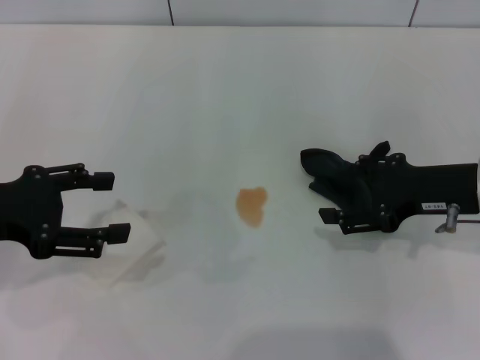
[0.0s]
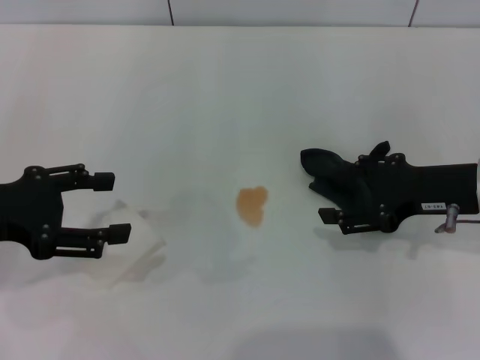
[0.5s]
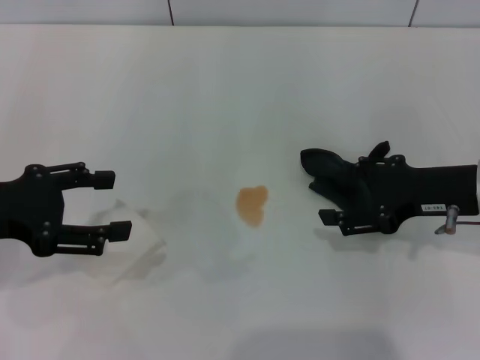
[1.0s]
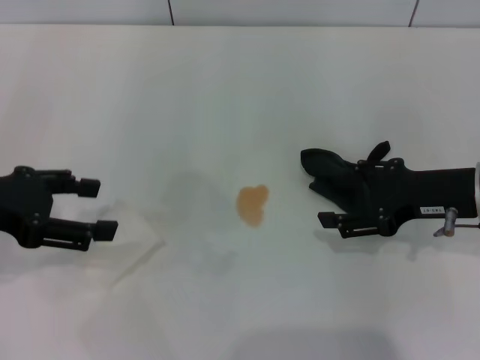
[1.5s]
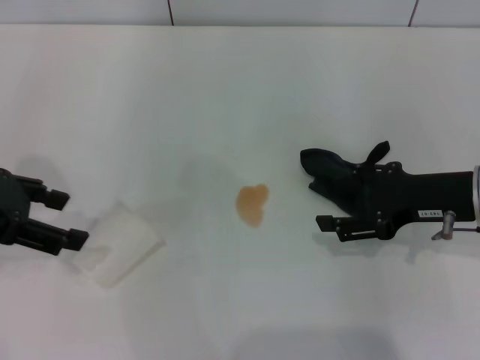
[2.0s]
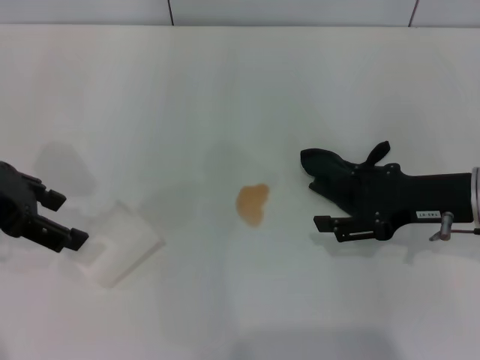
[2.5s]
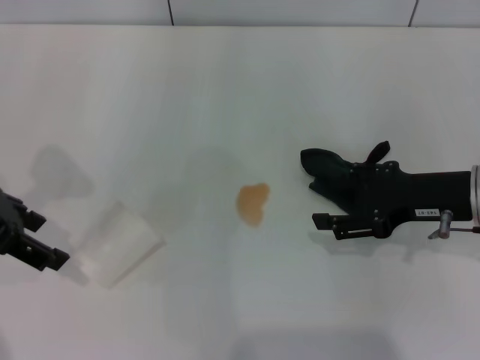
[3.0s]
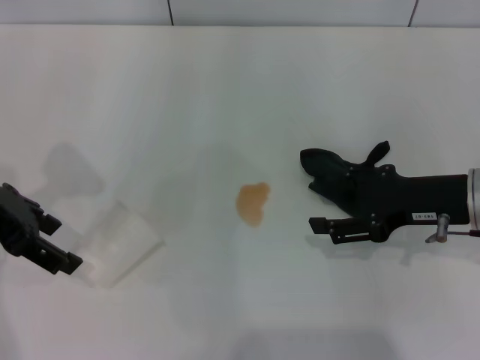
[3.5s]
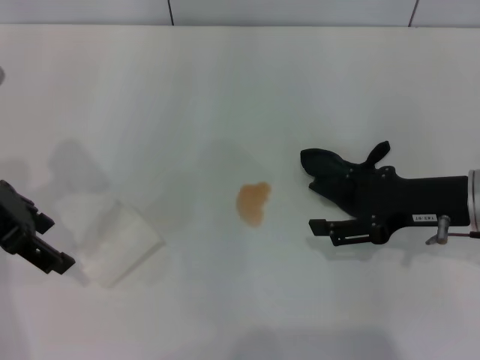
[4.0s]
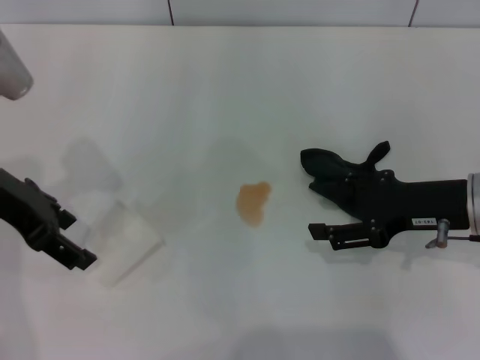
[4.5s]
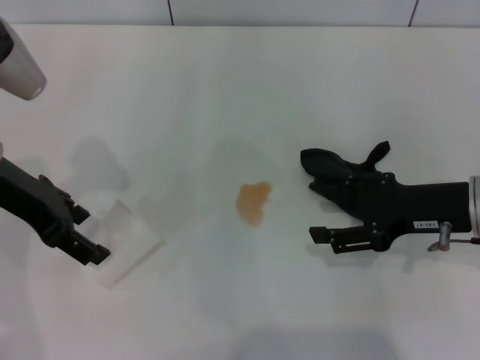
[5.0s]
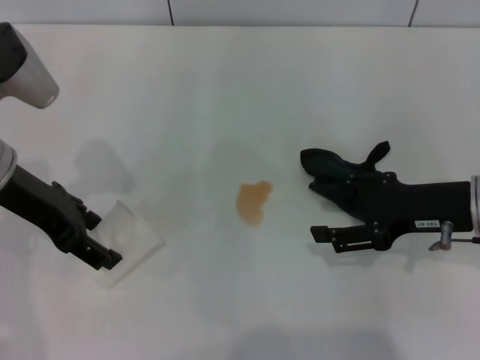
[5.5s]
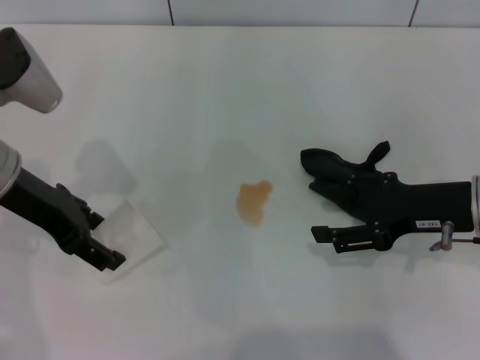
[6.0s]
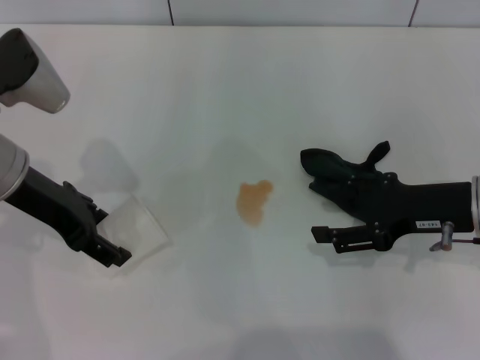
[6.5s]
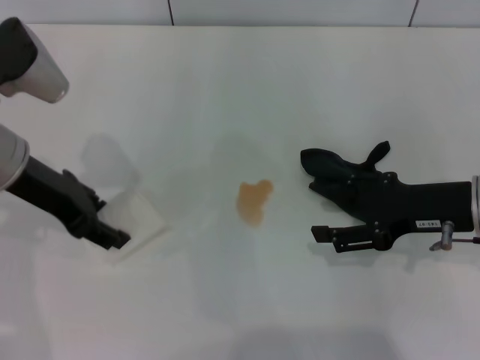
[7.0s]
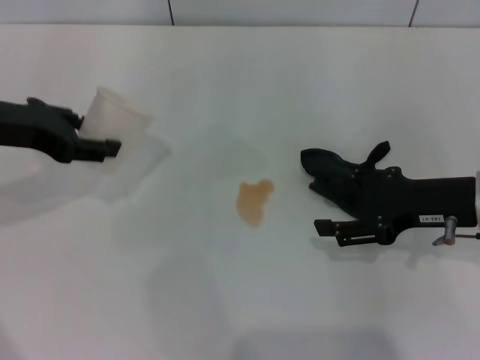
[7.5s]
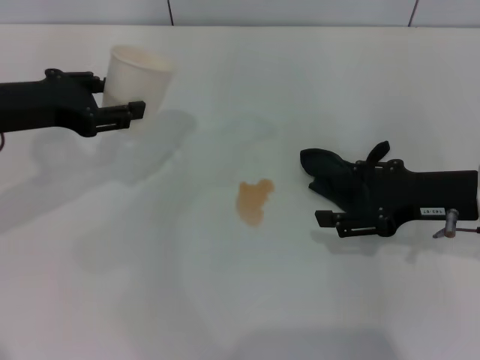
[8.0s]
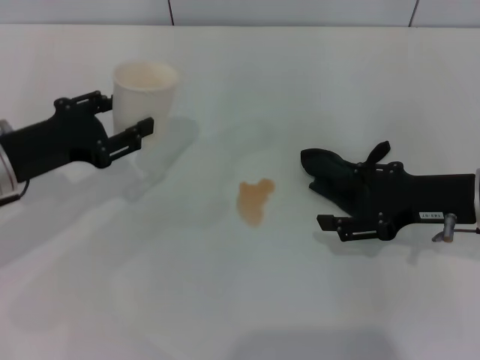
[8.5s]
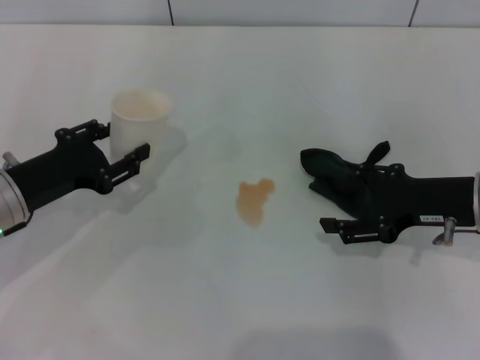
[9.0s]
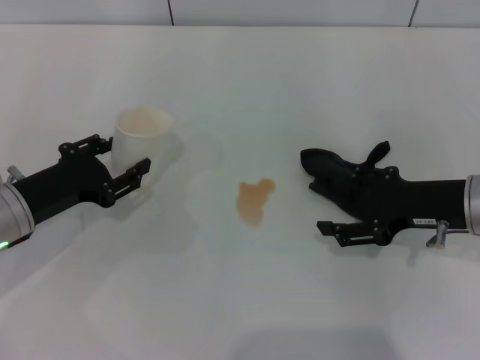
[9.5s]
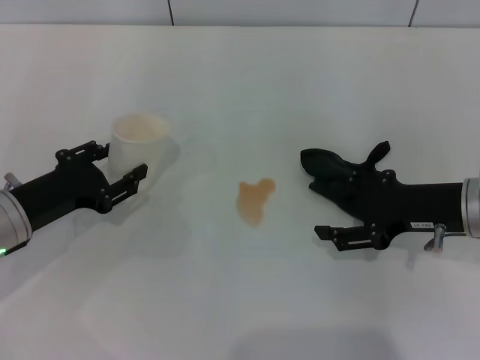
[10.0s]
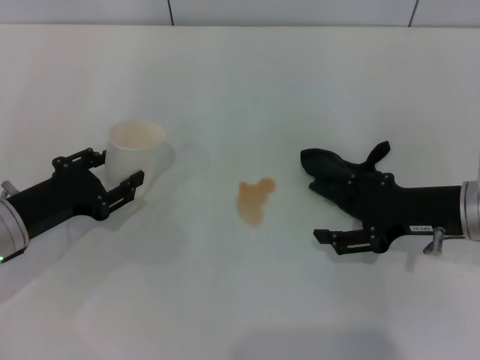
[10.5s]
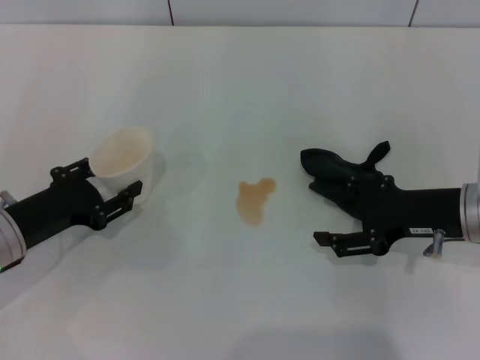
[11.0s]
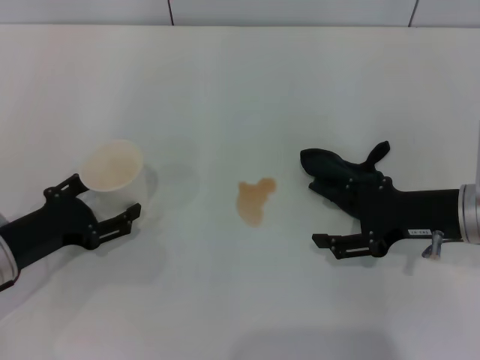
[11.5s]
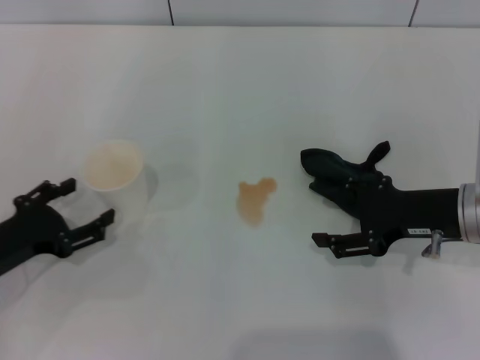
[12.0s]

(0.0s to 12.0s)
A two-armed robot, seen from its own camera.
Step, 0.0s - 6.5s: Grasp the paper cup with the left gripper.
Step, 7.0s - 11.5s: Stand the paper cup upright with the left gripper.
0.0s - 2.0s: The left gripper shifts by about 5 cm.
4.0s - 6.0s: The grippers stay close to where they were, moving slightly.
6.0s - 8.0s: The left gripper closes.
8.0s - 10.0s: The left gripper goes approximately 15 cm downward and backward.
10.0s - 12.0s: The left gripper shifts by some 5 cm, and opens.

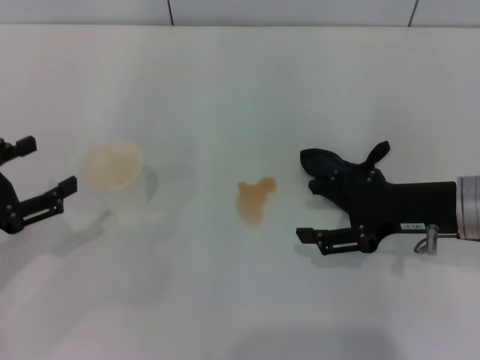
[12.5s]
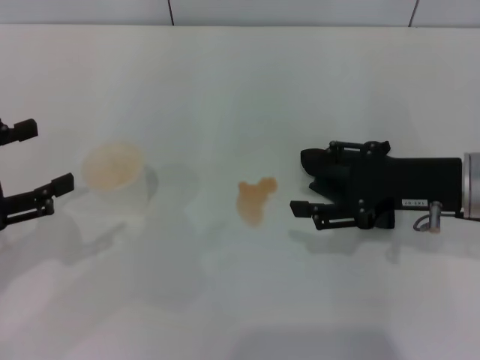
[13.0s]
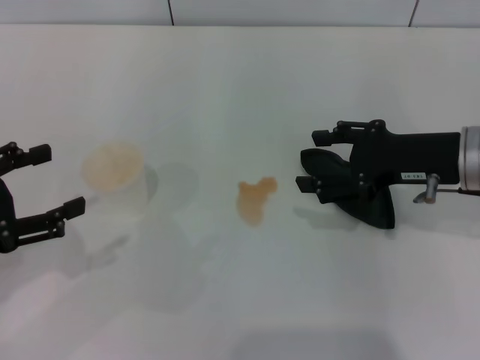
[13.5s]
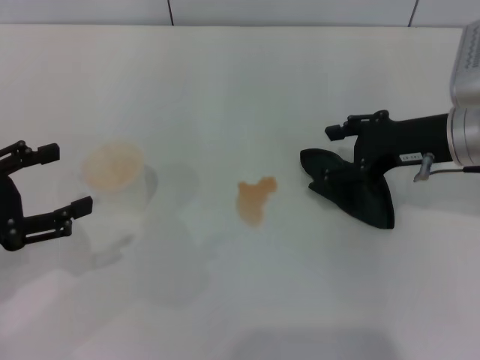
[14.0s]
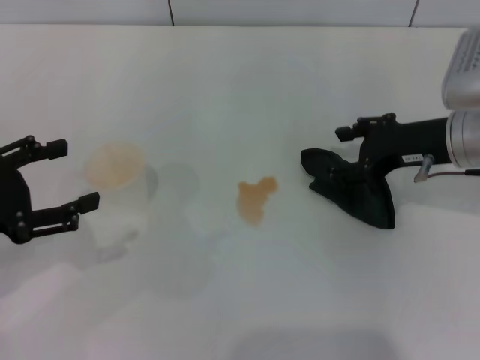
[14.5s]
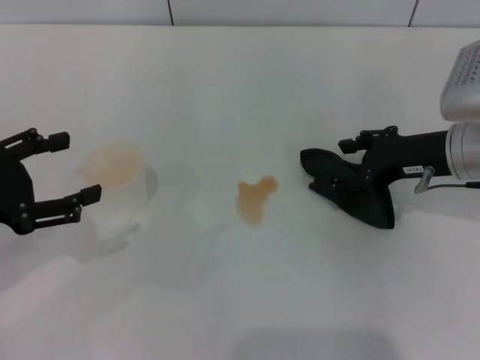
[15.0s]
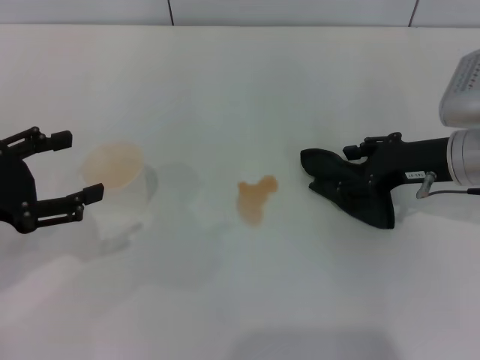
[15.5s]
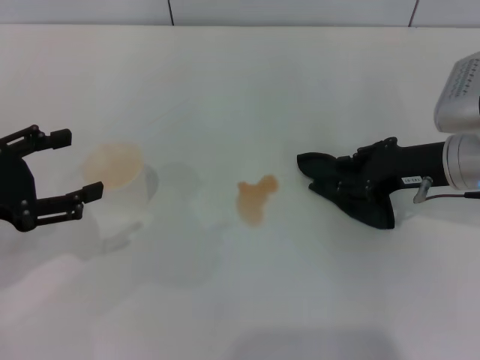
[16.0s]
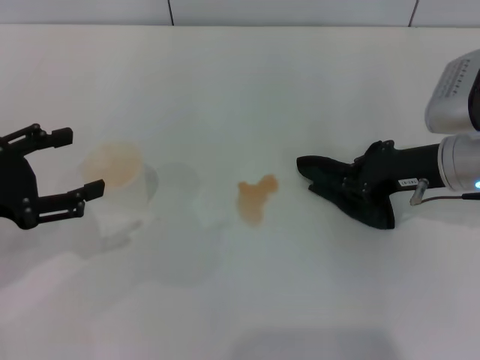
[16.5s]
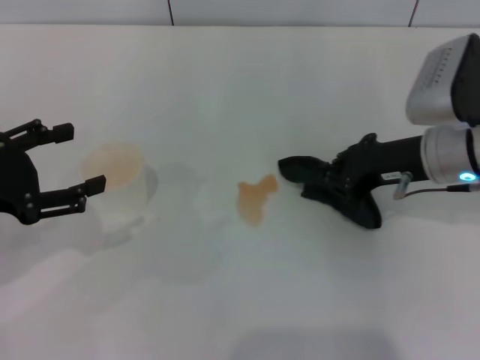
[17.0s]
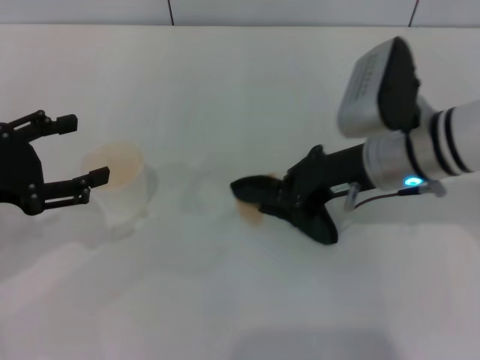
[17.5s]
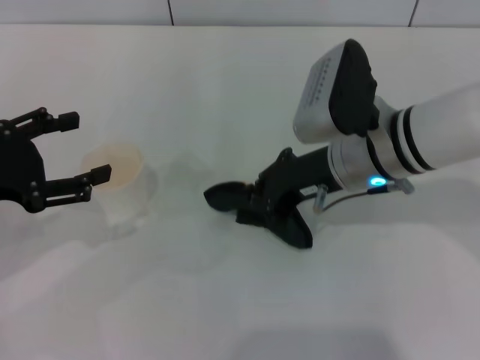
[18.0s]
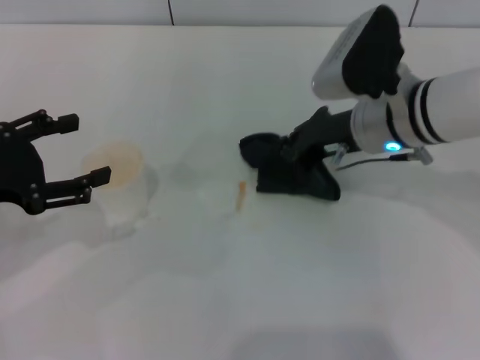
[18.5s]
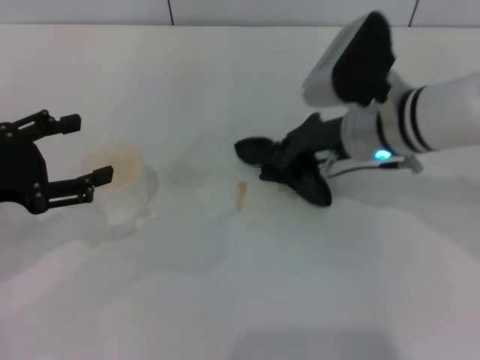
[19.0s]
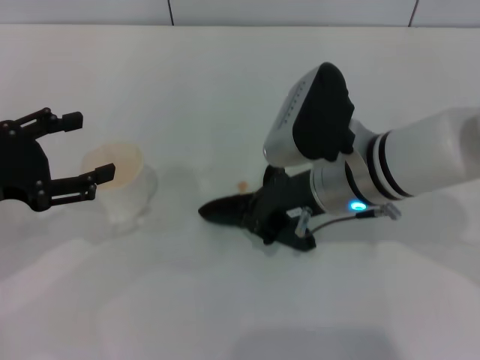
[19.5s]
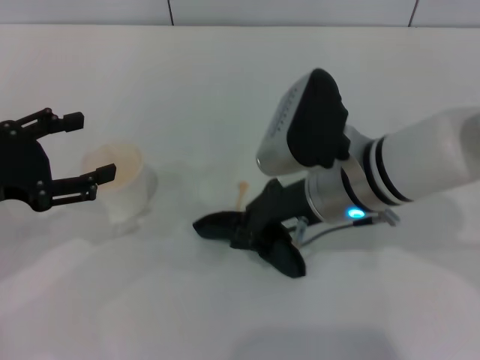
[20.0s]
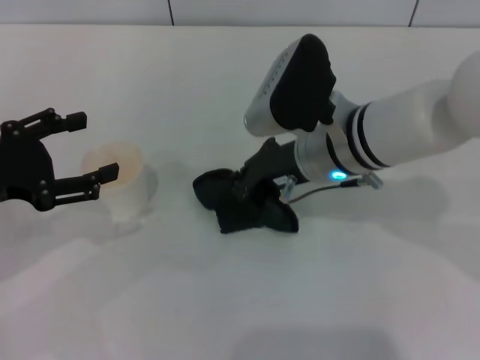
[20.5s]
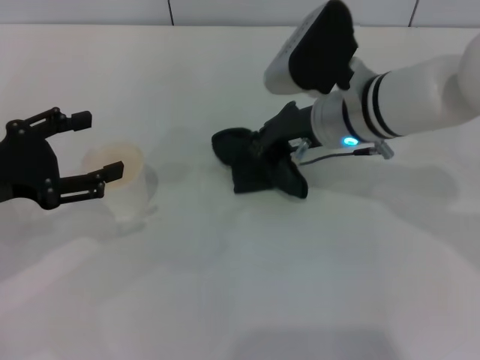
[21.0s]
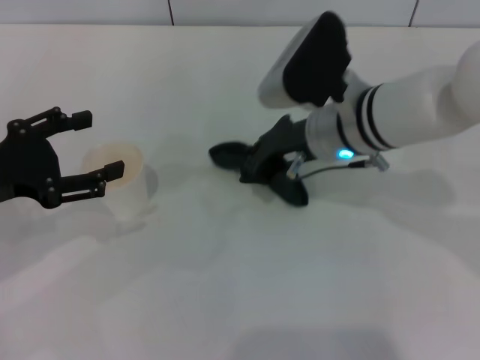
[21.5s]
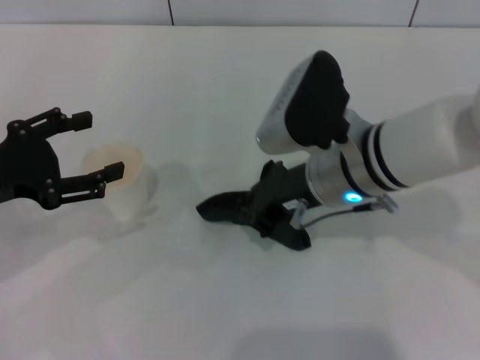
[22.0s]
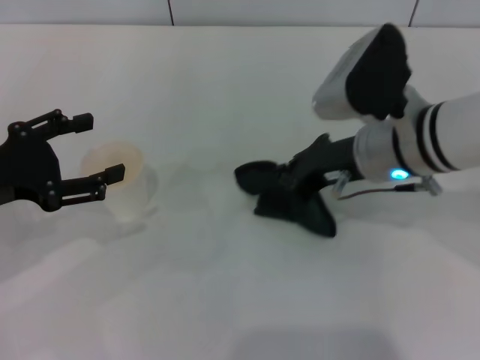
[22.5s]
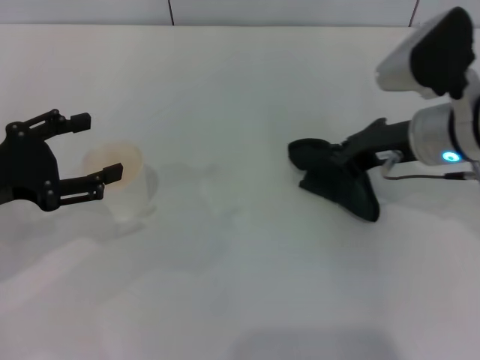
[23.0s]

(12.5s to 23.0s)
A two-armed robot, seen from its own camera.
Step, 12.5s - 16.0s: Grasp the rag with the right gripper.
12.5s - 14.5s: The right gripper heads forward, covering approximately 5 cm.
14.5s - 16.5s: The right gripper closes up.
16.5s - 19.0s: The right gripper heads to the left, covering some 10 cm.
21.0s - 23.0s: The right gripper travels to the right by roughly 10 cm.

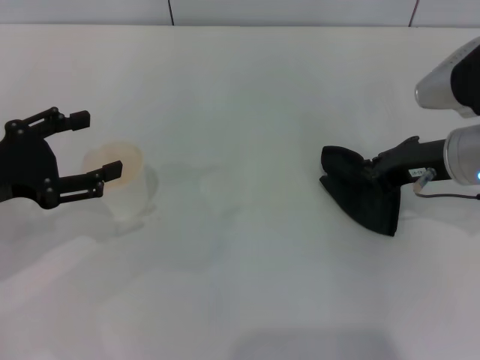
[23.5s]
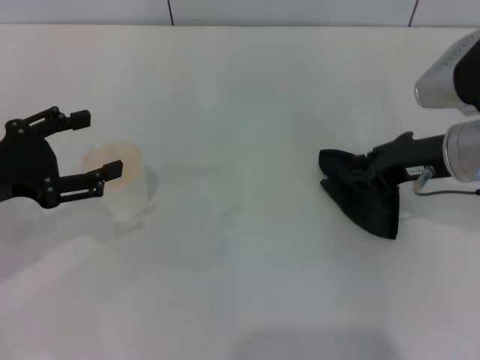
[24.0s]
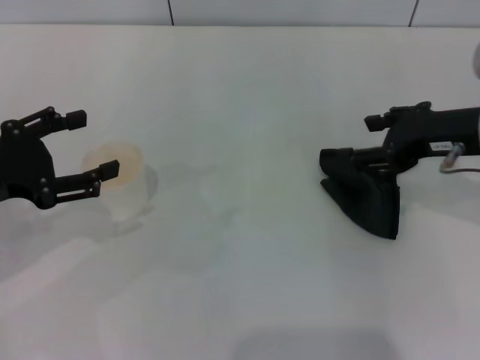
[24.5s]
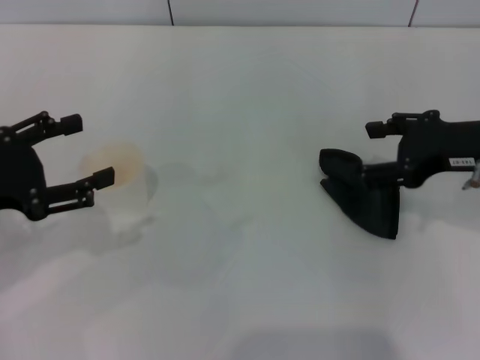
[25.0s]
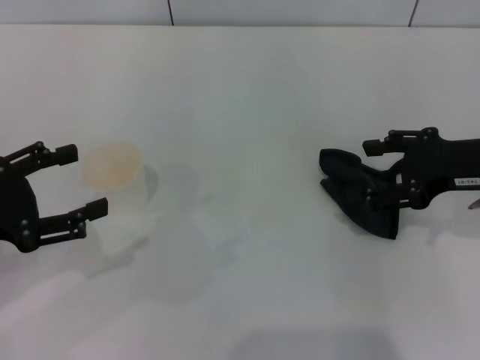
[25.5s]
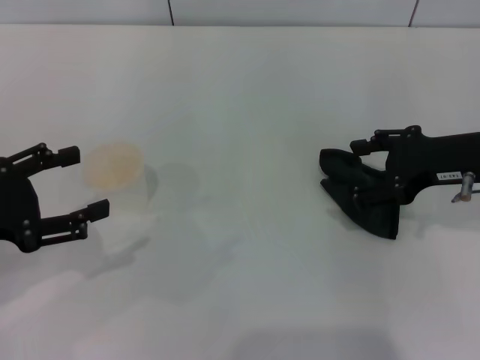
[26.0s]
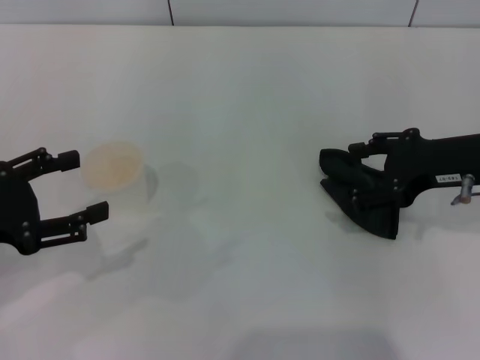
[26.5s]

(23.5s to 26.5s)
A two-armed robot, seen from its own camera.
23.5s - 25.0s: The right gripper ends up some 5 cm from where it was, and opens its fingers.
25.0s - 26.5s: The grippers stay close to where they were, moving slightly.
